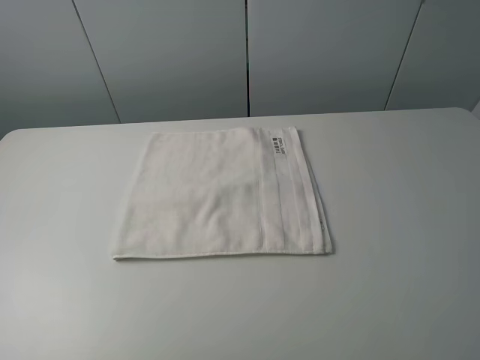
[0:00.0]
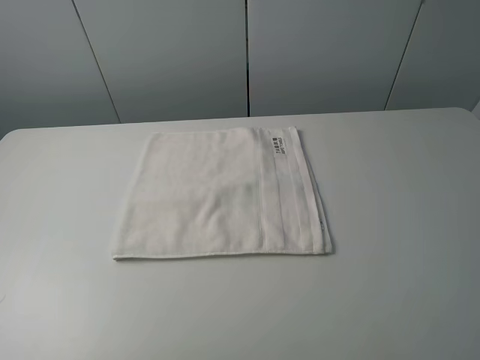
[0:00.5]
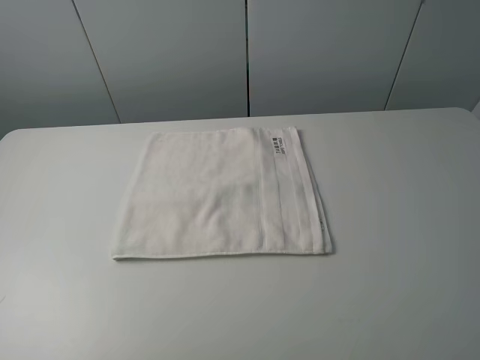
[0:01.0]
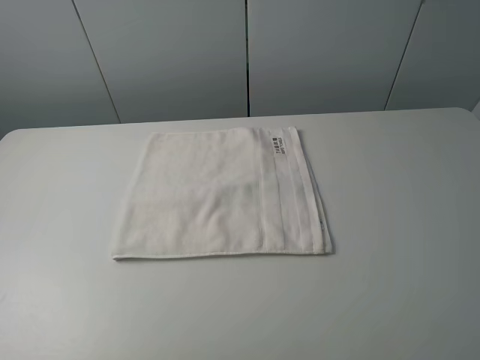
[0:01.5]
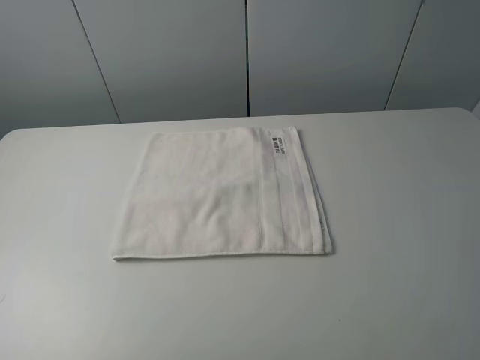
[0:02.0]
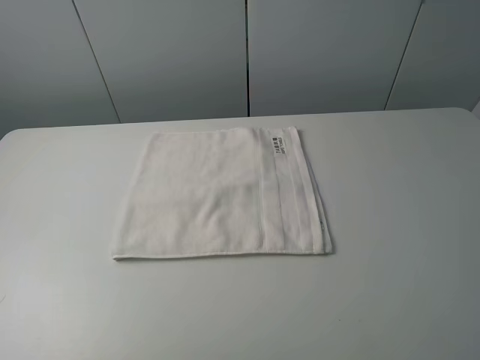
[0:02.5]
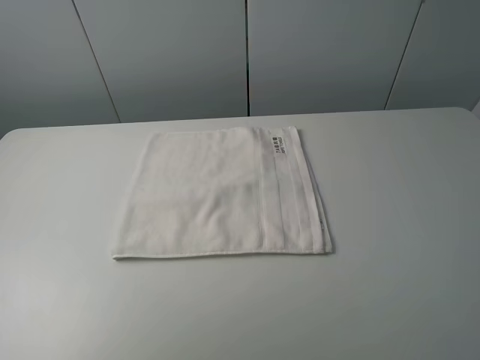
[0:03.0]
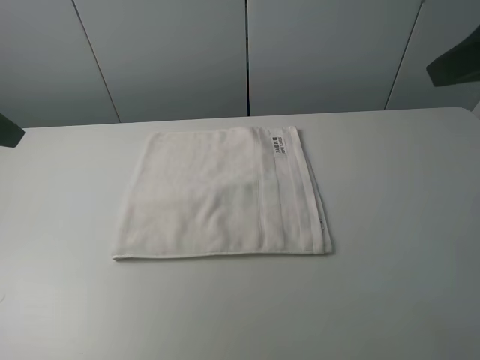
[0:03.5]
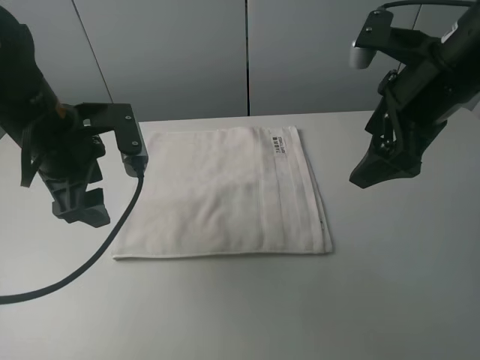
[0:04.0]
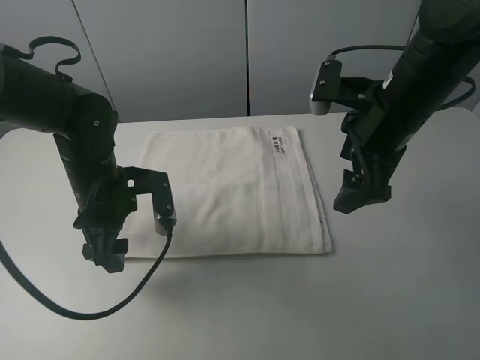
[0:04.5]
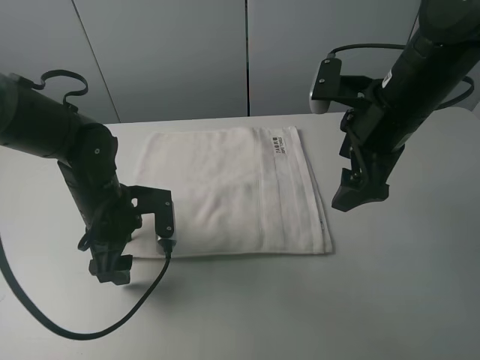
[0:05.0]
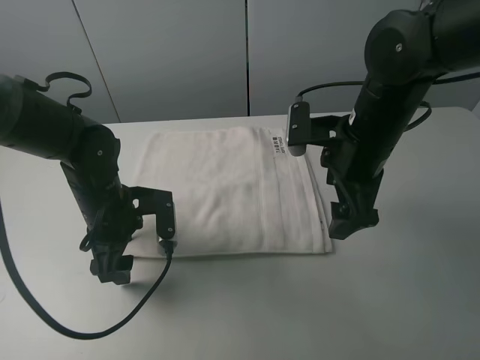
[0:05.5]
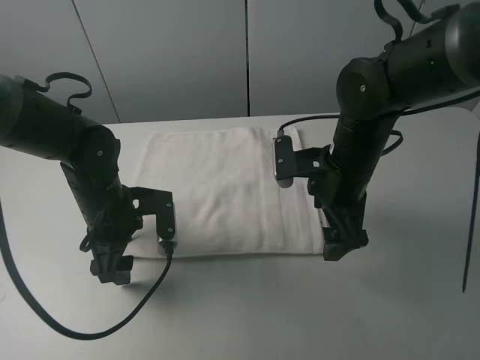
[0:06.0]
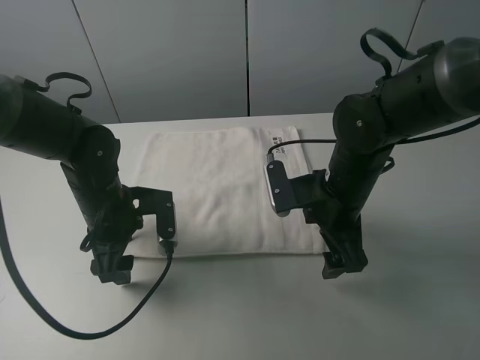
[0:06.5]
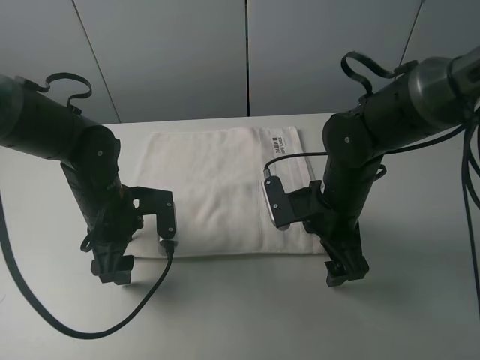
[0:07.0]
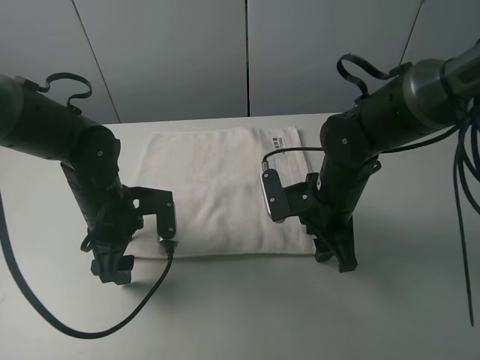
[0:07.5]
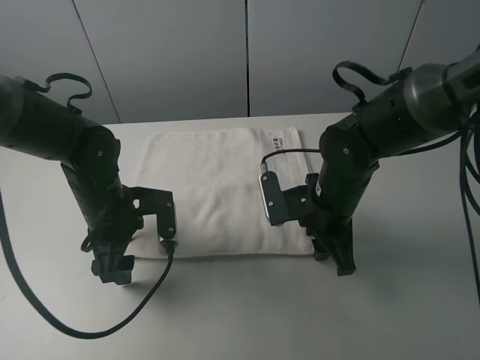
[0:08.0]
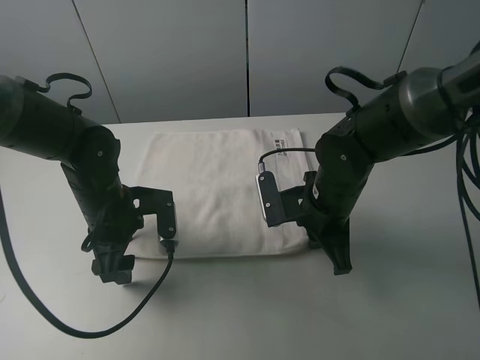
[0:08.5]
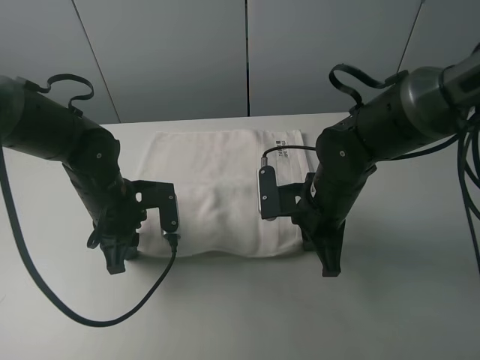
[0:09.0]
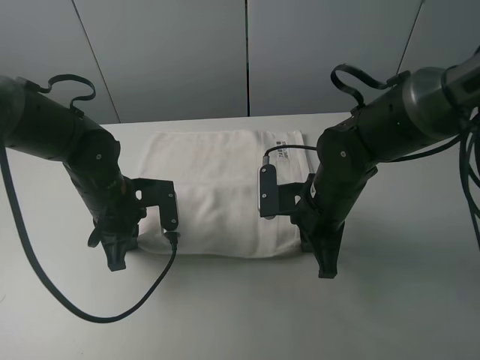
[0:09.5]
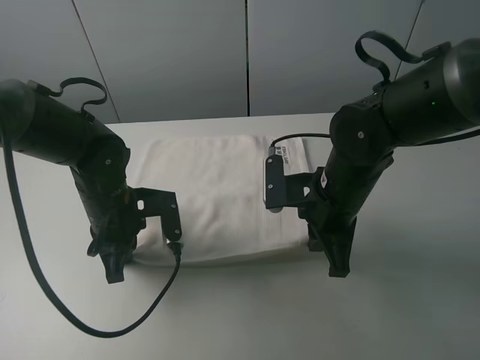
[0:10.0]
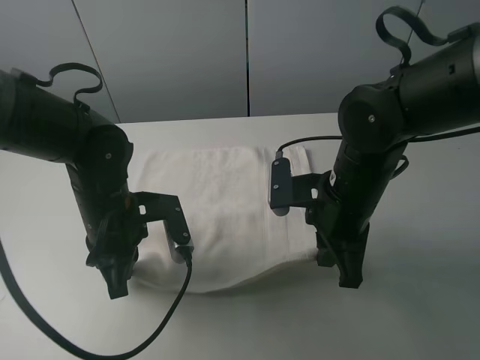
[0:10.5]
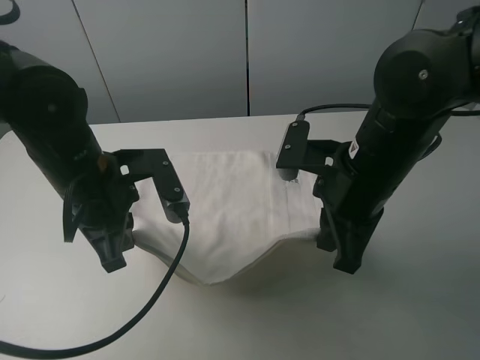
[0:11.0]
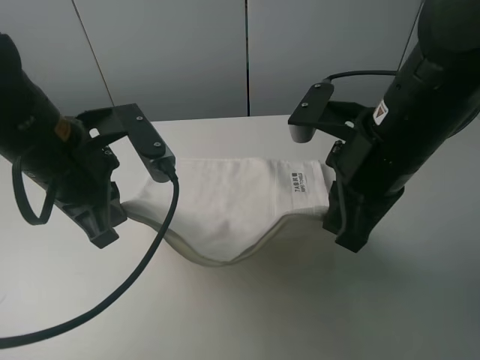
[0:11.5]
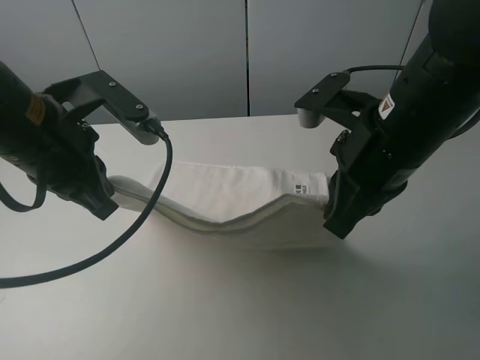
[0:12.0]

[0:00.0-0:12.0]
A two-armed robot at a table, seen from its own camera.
Task of the whole recording: fold the towels on the table.
Step, 0:00.0 to 0:08.0: Grasp the white towel with the right gripper.
Step, 0:08.5 to 0:09.5: Grasp the white towel with the left gripper.
0:00.0 to 0:02.0: Both grippers stay put.
0:02.0 to 0:04.0: The left gripper moves forward and to the right, approximately 30 cm, while the right gripper goes approximately 25 cm forward.
0:04.0 to 0:06.0: The left gripper goes some 10 cm downward. Meanwhile the right gripper goes roughly 15 cm downward and to the left.
0:06.0 to 0:08.0: The right gripper moves downward, roughly 5 cm, and closes up.
0:08.0 to 0:10.0: The right gripper closes its fingers. Meanwhile the left gripper closes its fingers.
0:10.0 to 0:12.0: The grippers both shift upward by approximately 15 cm.

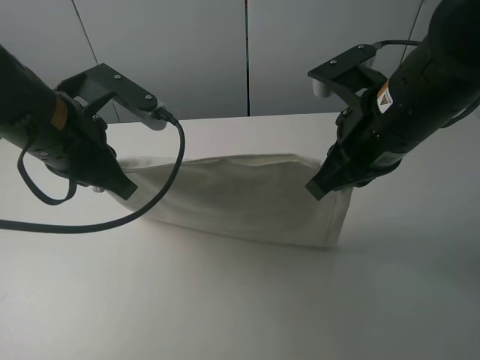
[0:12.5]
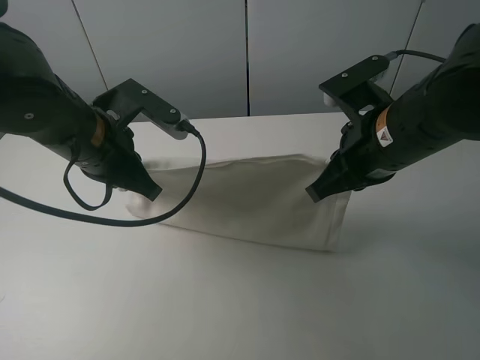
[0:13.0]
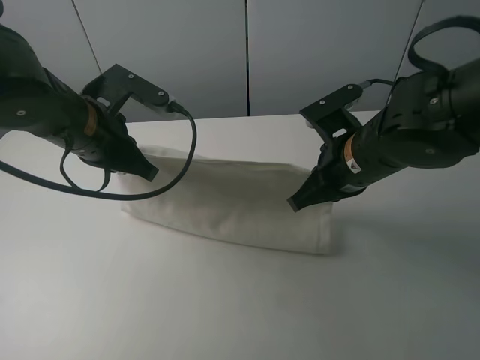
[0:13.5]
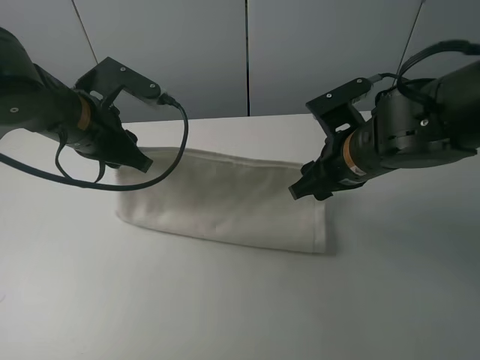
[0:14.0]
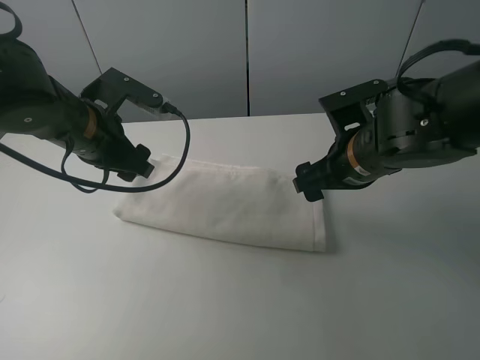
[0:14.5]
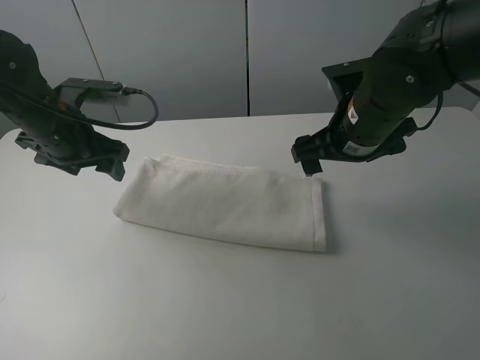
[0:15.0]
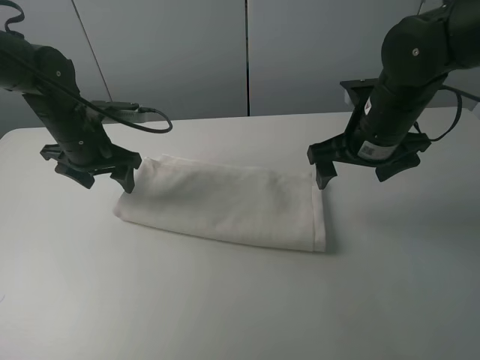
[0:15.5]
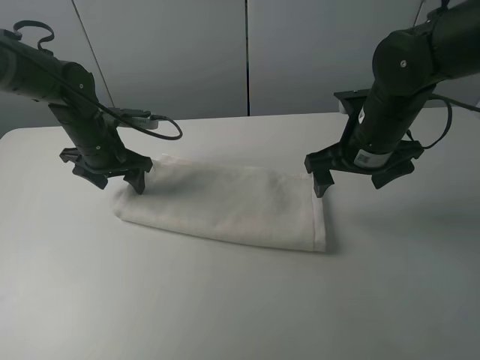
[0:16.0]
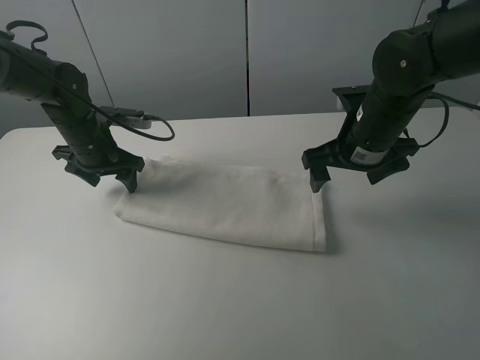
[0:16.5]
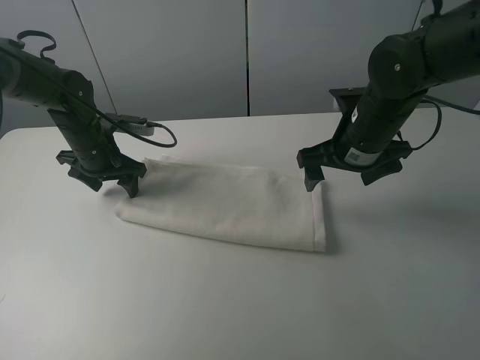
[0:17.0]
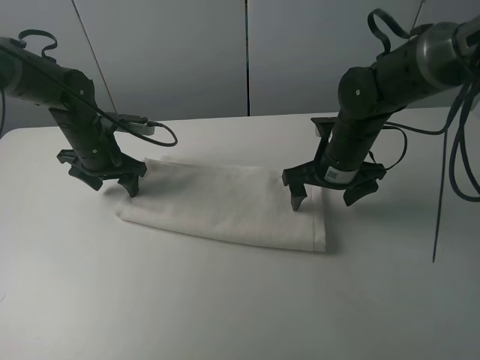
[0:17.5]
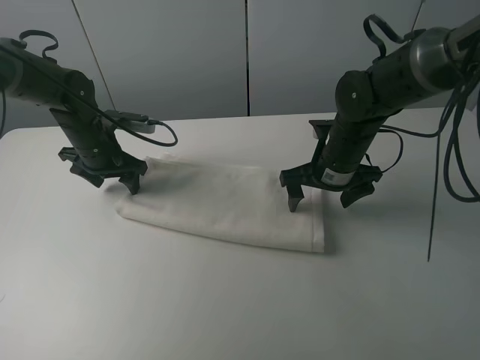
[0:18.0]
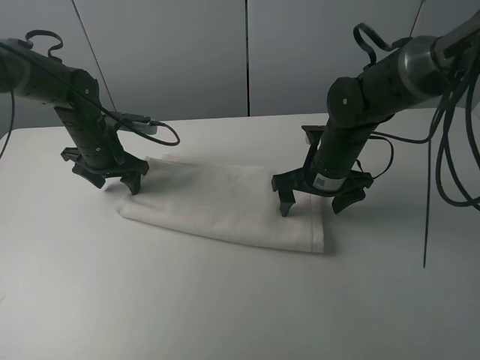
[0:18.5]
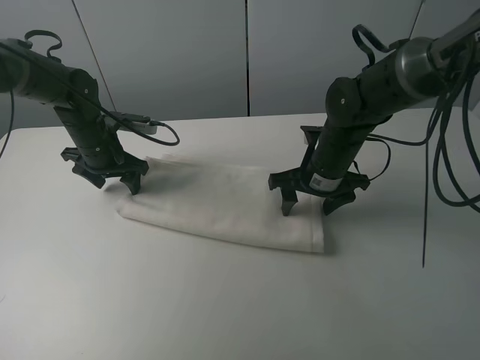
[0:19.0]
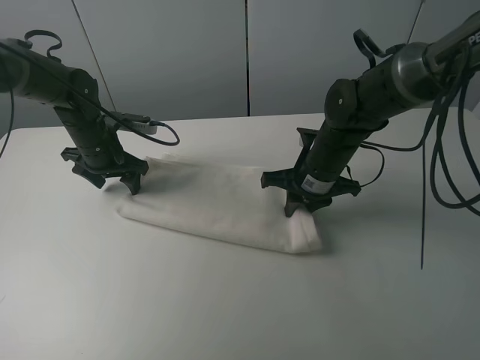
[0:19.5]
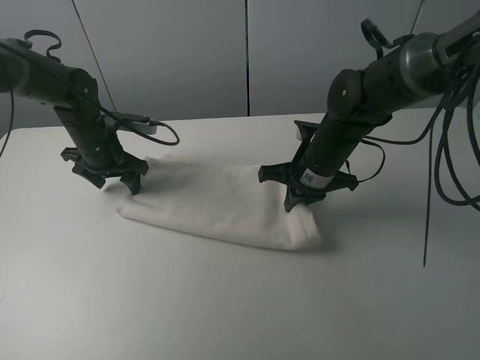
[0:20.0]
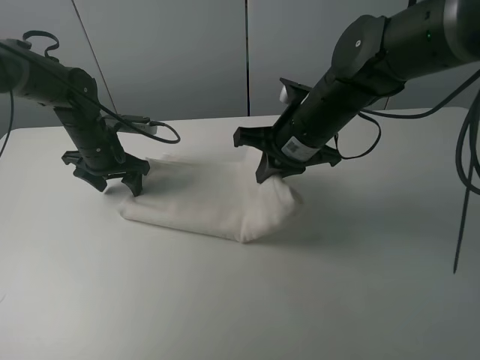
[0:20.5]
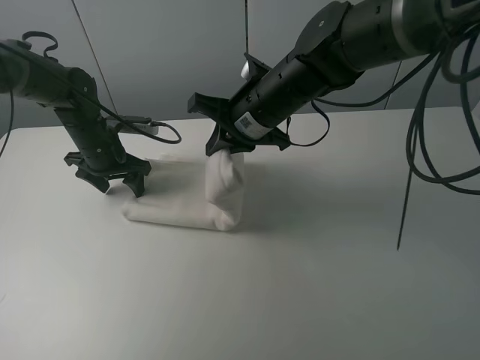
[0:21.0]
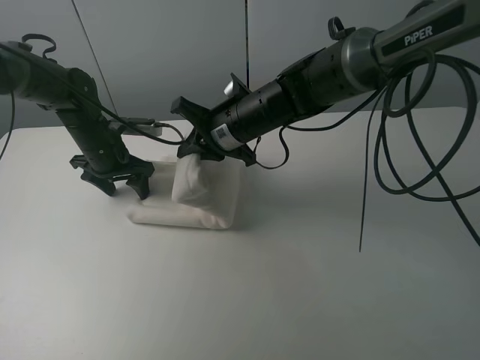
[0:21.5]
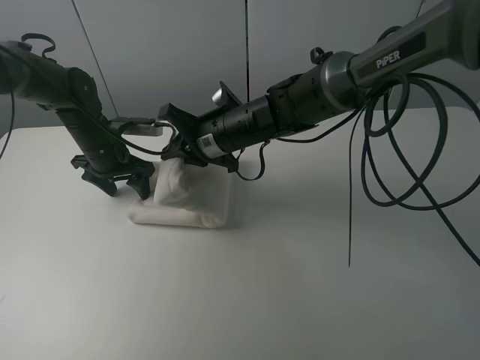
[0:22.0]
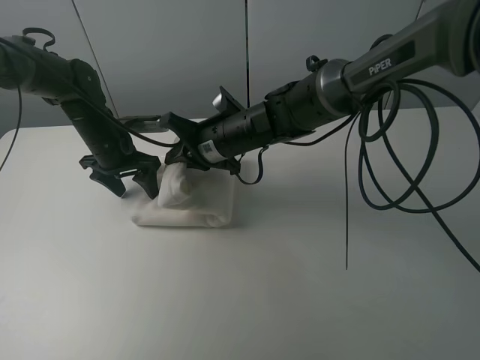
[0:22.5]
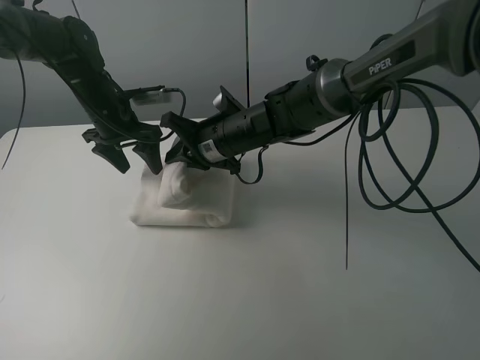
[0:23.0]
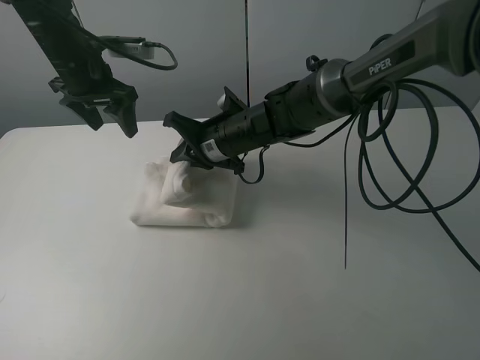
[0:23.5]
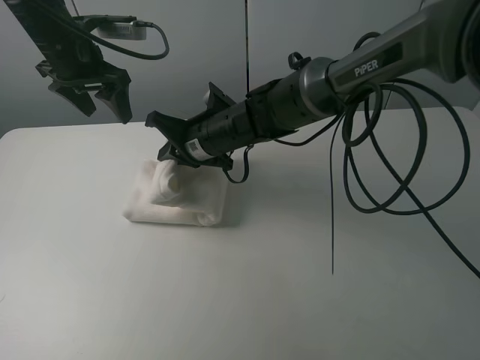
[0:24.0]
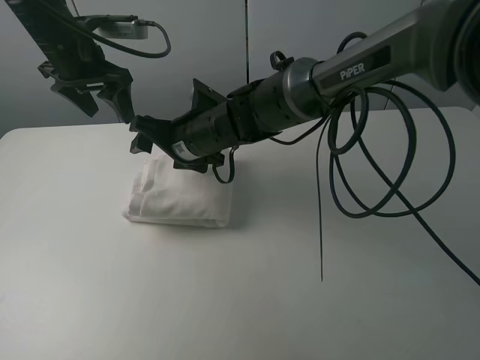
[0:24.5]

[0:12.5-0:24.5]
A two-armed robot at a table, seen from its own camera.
Task of the whole recording: fold the towels on the table.
Step, 0:12.5 to 0:14.5: Fold the white towel upwards with the right gripper.
Step, 0:15.0 to 0:17.0: Press on the white towel with the left gripper.
Step, 0:17.5 to 0:19.5: Grasp the white towel with the right gripper.
0:12.5 to 0:14.5: The left gripper goes about 5 cm forward, and opens its fingers, while the right gripper goes approximately 10 cm downward, and opens.
0:14.5 to 0:16.5: The right gripper ends up approximately 5 cm from where it was; the left gripper moves forward, downward and to the left, about 15 cm.
0:16.5 to 0:18.5: The right gripper moves downward, some 5 cm.
0:18.5 to 0:20.5: The right gripper heads upward and to the left, covering approximately 10 cm, and closes its fingers.
0:20.5 to 0:22.5: The right gripper moves to the left and downward, some 10 cm.
0:22.5 to 0:24.5: The right gripper opens up. The left gripper is displaced upward by roughly 15 cm.

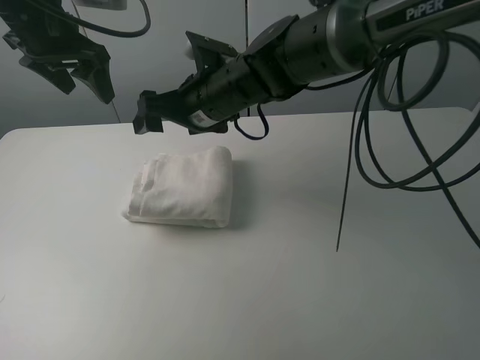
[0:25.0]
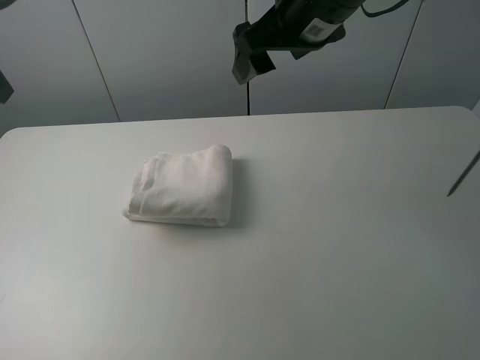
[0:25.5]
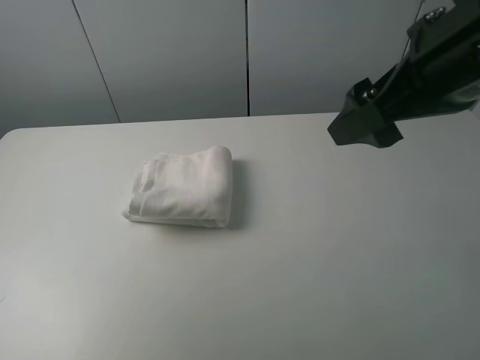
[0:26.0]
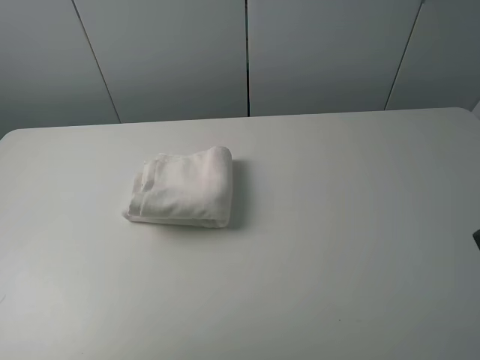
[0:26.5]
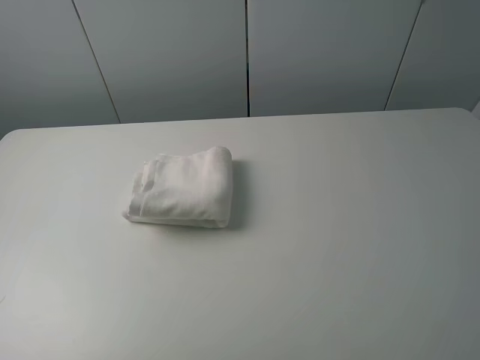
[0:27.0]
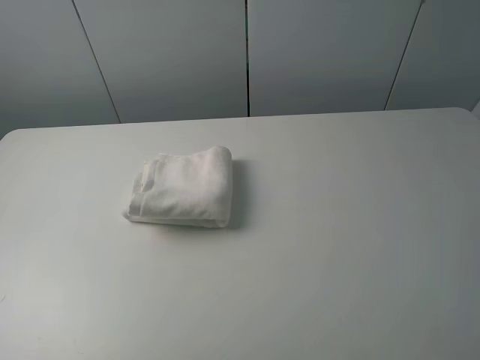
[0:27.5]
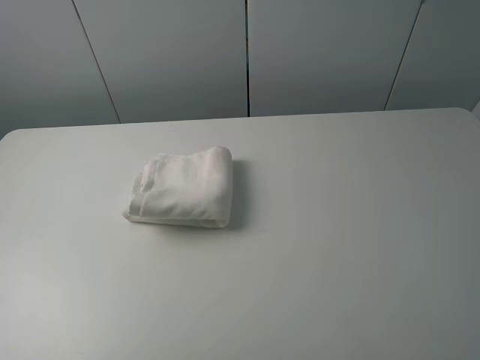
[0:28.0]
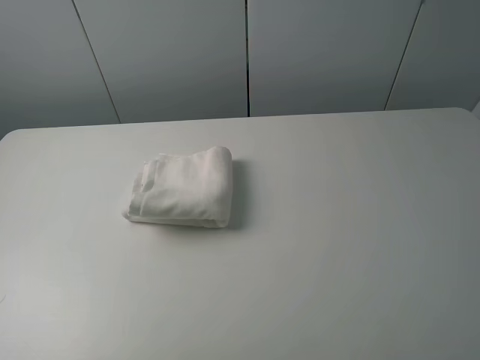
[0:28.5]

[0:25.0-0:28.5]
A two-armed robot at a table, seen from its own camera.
Task of the whole recording: fold the towels on the table.
0:25.0 to 0:27.0: The left gripper travels backward by approximately 40 cm; the right gripper is displaced backward and to the right by some 40 cm.
